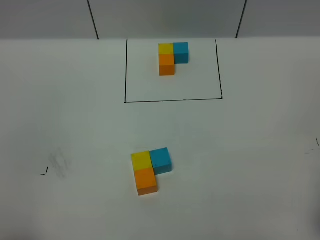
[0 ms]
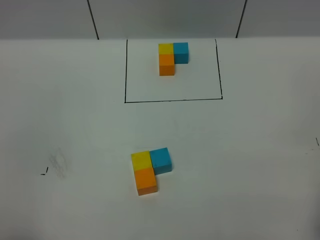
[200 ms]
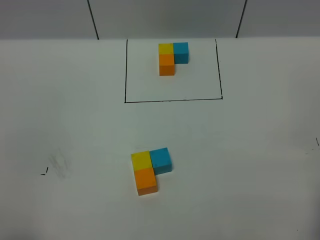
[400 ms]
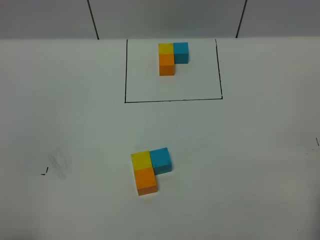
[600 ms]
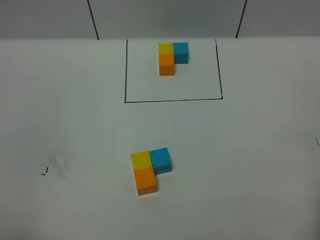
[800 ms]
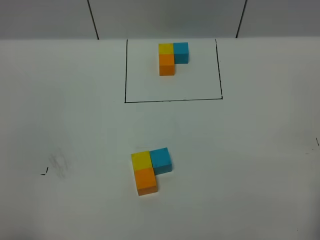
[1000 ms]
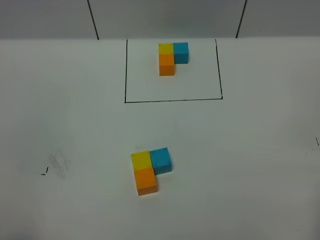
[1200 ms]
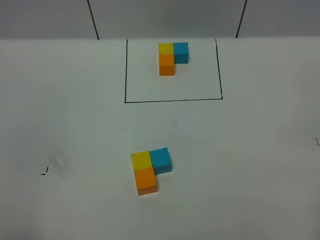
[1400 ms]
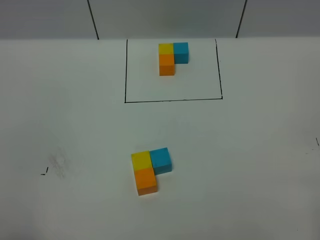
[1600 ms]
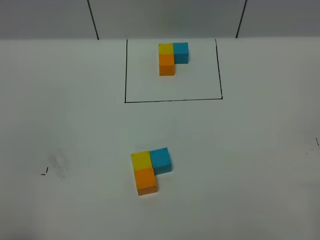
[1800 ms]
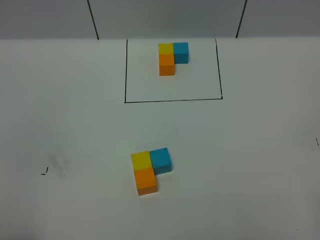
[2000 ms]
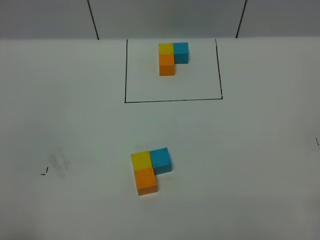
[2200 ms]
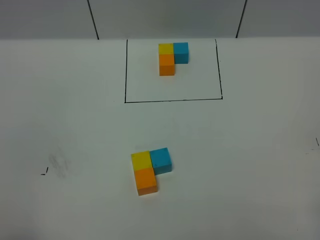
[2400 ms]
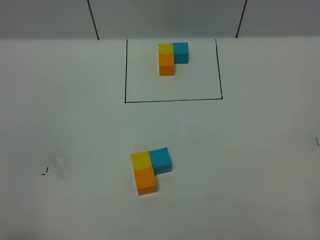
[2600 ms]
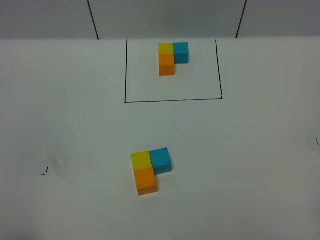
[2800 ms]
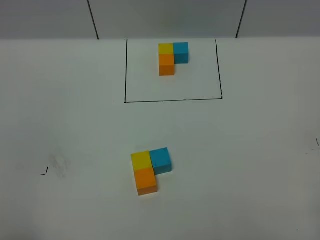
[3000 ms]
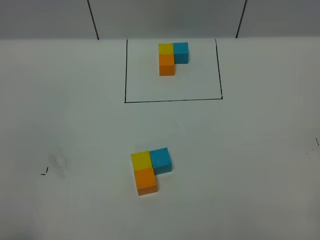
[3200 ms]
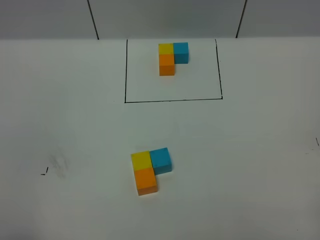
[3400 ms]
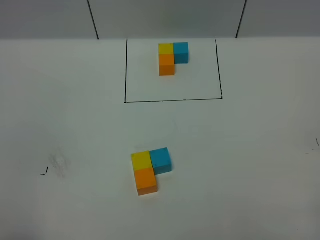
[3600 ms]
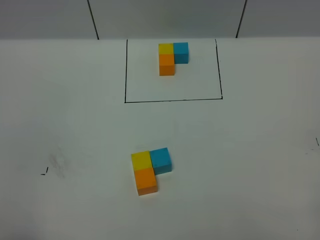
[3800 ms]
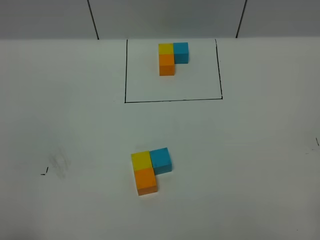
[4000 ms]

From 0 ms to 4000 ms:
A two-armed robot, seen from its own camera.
Task of the whole recording: According to the building block template in front, assemble the scattered blocks together.
From 2600 ms to 4000 ms: The two grippers keep their place.

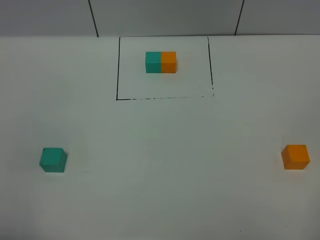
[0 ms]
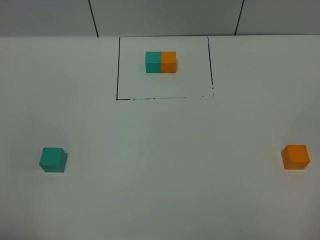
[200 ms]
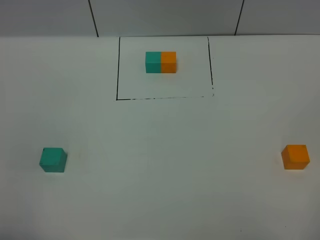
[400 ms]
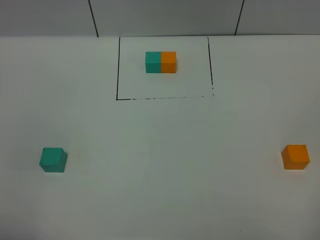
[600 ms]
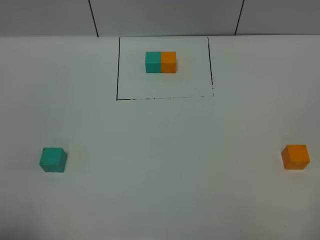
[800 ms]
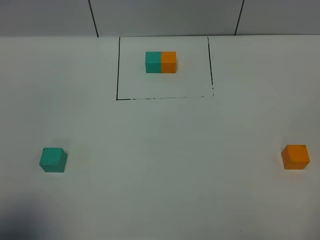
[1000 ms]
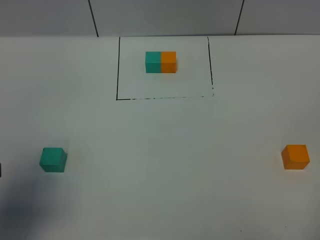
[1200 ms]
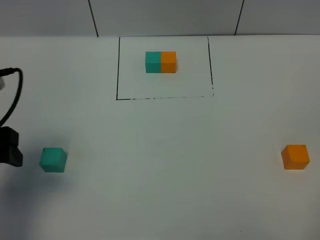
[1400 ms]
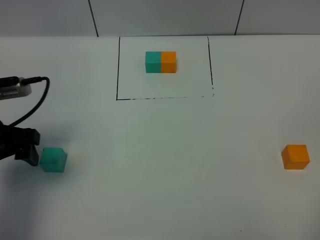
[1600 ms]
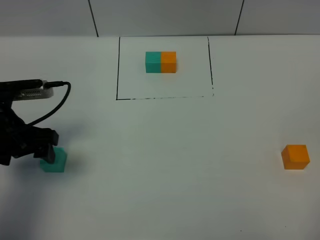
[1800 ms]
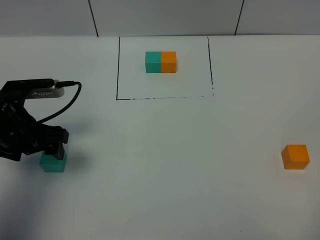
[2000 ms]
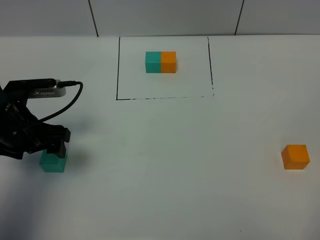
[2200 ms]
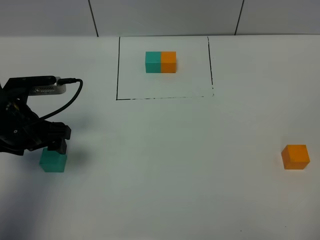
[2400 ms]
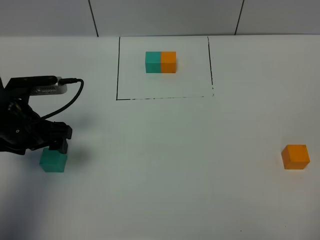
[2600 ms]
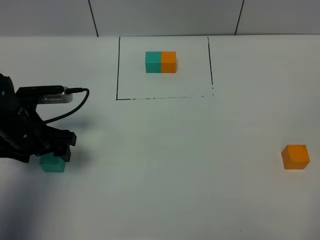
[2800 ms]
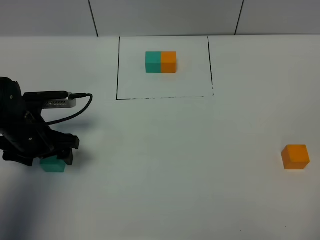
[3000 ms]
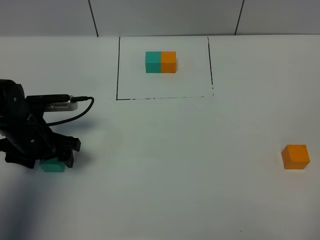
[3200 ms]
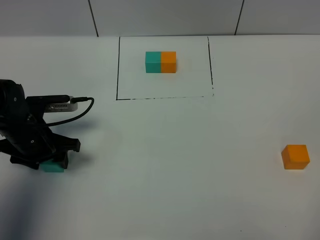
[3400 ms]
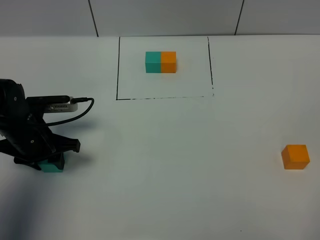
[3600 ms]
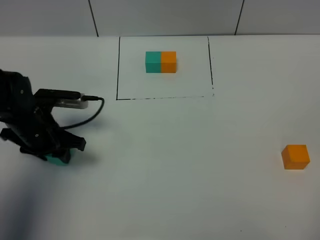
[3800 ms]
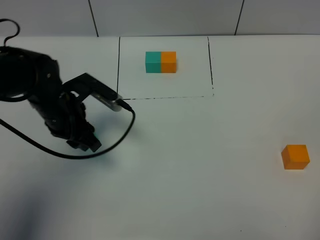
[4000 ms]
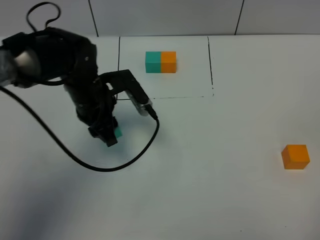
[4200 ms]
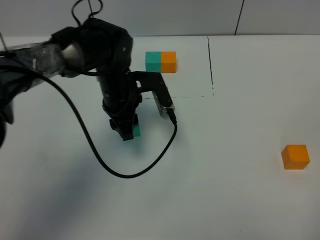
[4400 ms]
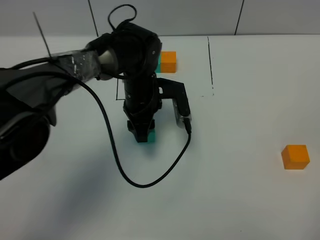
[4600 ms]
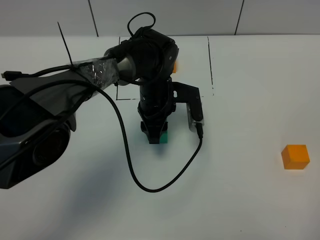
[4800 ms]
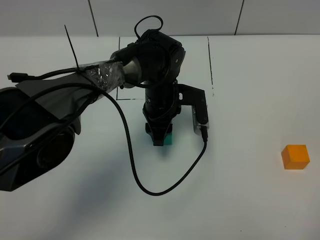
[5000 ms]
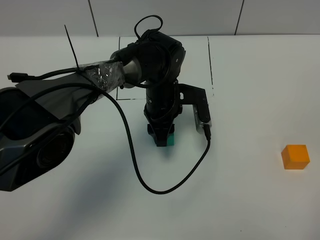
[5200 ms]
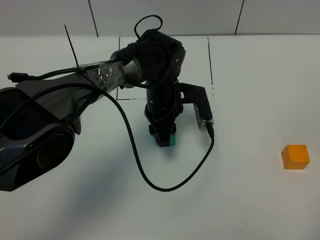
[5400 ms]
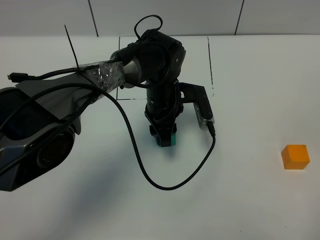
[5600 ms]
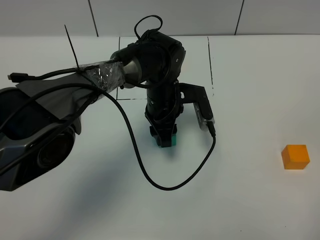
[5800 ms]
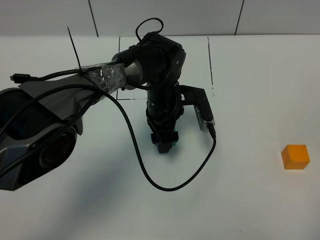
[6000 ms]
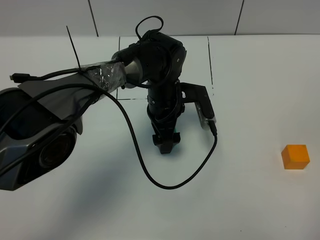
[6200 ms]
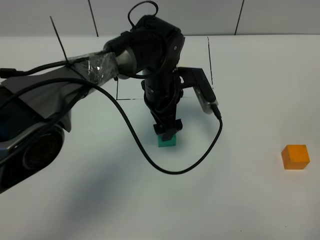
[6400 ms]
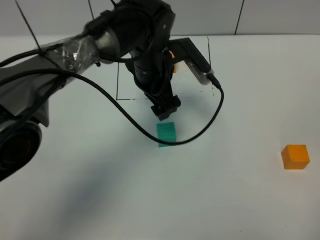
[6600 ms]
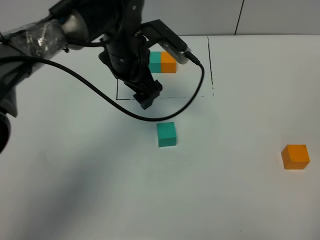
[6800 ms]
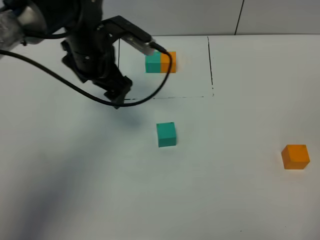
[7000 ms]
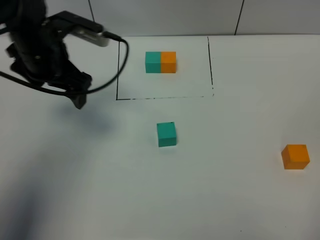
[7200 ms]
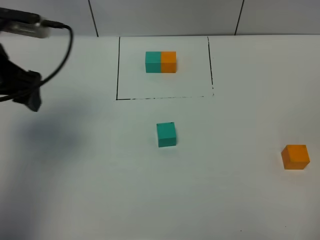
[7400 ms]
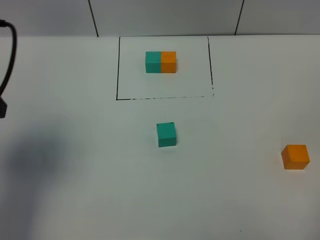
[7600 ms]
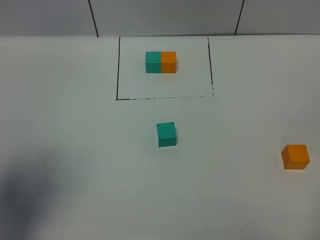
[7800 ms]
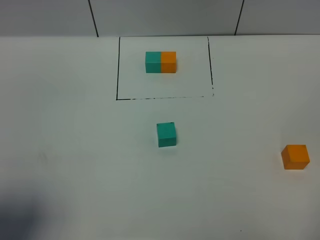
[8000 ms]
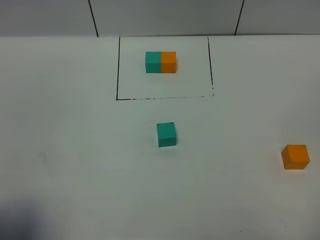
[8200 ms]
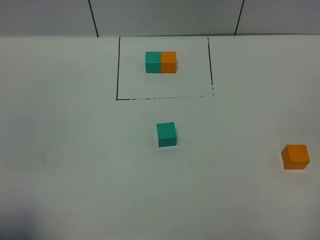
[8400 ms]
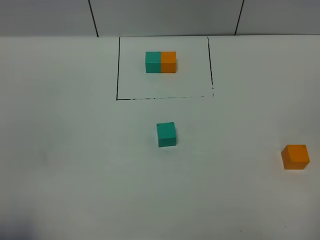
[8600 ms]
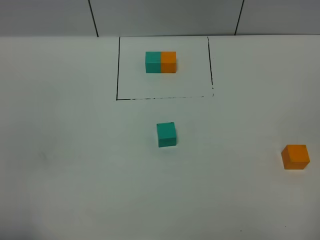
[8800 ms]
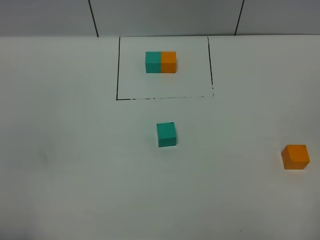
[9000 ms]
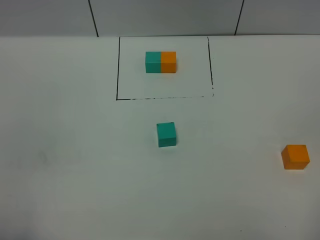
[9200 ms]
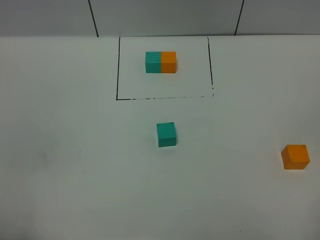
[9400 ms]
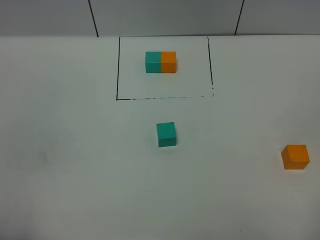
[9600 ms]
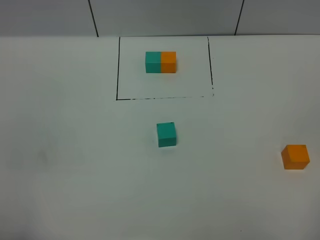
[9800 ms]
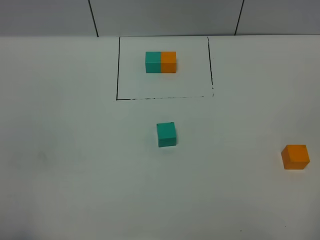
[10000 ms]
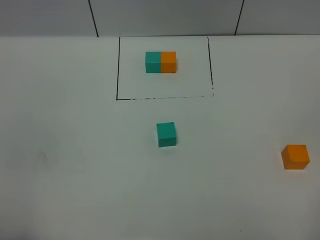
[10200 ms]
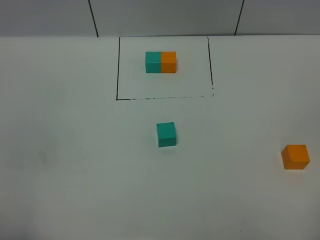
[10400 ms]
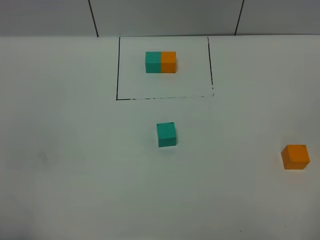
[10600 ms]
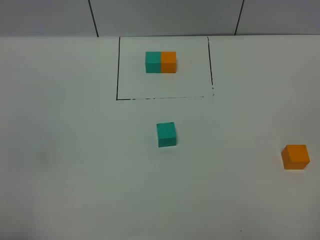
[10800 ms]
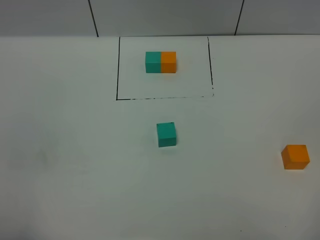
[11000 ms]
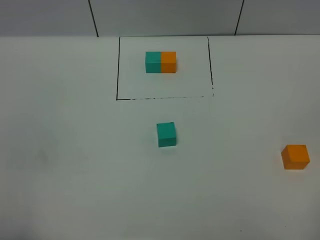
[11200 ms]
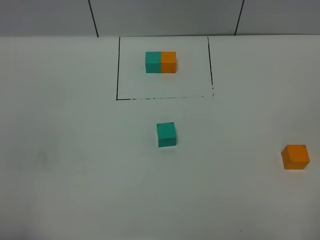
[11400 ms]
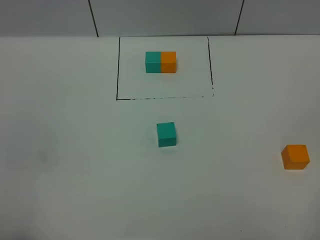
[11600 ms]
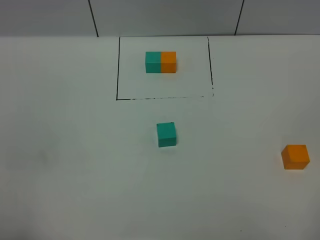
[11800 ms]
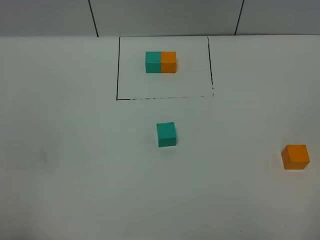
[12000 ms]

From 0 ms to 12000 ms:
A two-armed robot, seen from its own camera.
Task of the whole recording: According to the building block template in front, assemble the scattered blocks together.
Step, from 1200 ms to 6000 ms: Put the green cube in the center of the table.
From 0 ms to 1600 ms: The left gripper heads forward, covering some 25 cm.
From 1600 ms to 3000 ms: The left gripper moves downward, roughly 10 cm.
From 3000 ms to 4400 ms: The left gripper travels to the right and forward by some 20 cm, and closes.
From 4400 ms to 6000 ms: The left gripper is displaced to the right by roughly 5 cm, and opens its fingers.
From 6000 ms to 7600 ms: The left gripper shifts approximately 40 cm to the left, upward and backward.
From 7600 ms to 9000 ms: The left gripper moves backward, about 20 cm.
From 9000 ms to 12000 ms: Neither gripper changes place.

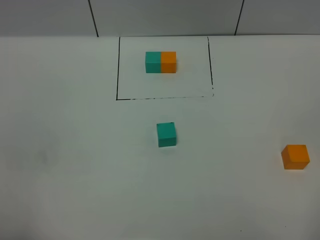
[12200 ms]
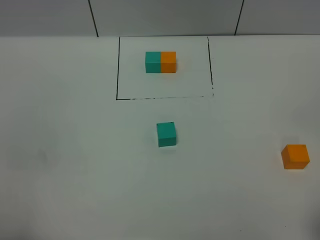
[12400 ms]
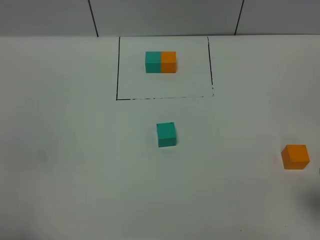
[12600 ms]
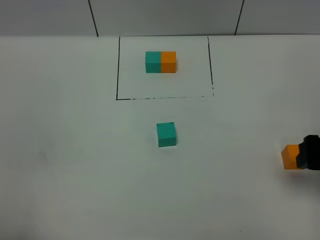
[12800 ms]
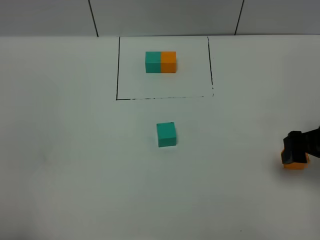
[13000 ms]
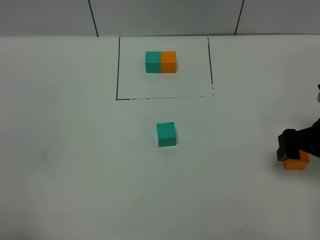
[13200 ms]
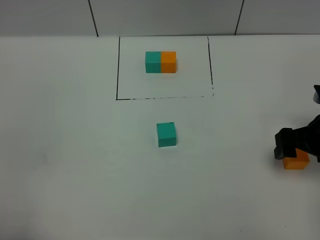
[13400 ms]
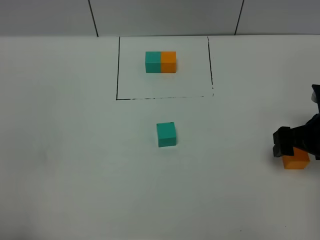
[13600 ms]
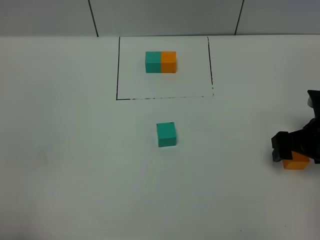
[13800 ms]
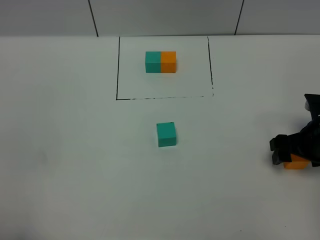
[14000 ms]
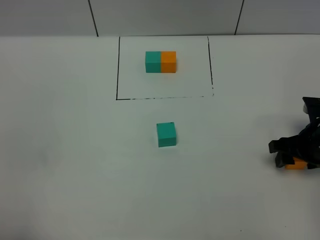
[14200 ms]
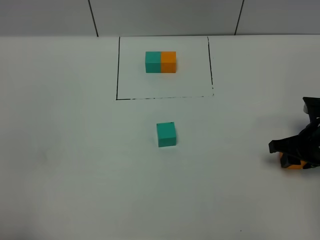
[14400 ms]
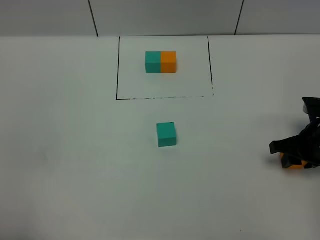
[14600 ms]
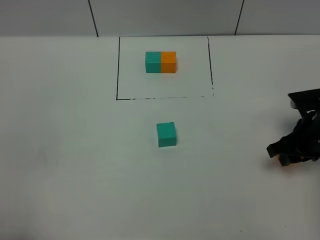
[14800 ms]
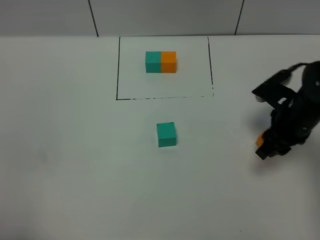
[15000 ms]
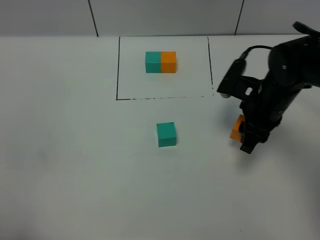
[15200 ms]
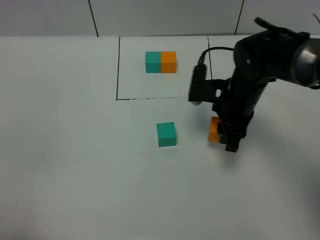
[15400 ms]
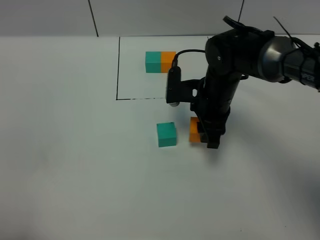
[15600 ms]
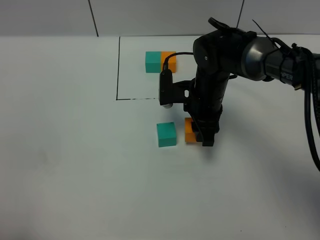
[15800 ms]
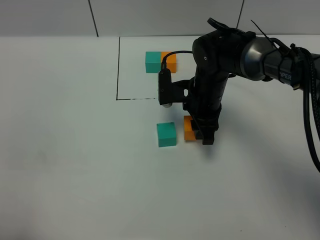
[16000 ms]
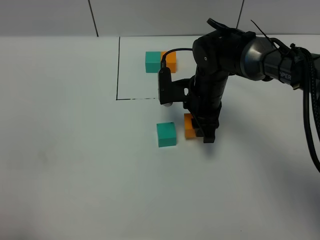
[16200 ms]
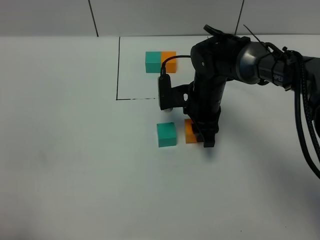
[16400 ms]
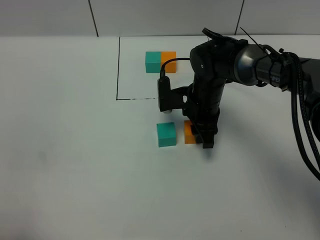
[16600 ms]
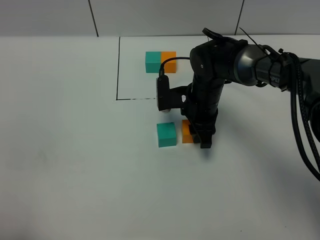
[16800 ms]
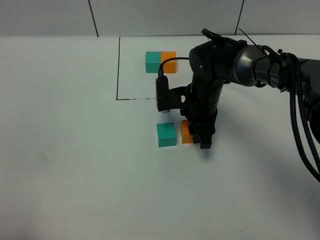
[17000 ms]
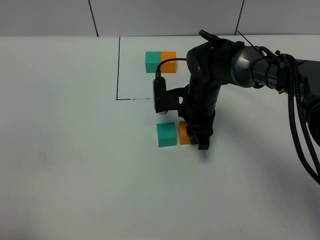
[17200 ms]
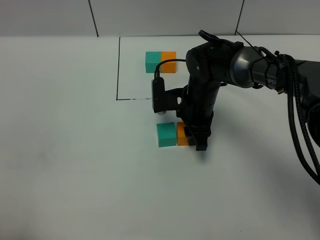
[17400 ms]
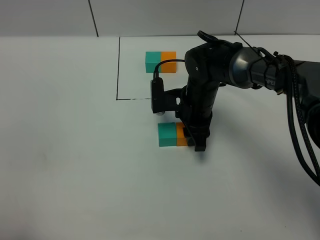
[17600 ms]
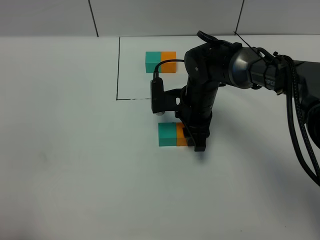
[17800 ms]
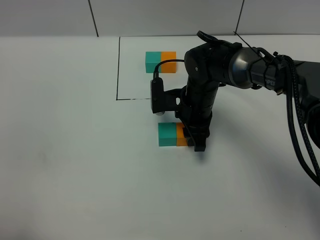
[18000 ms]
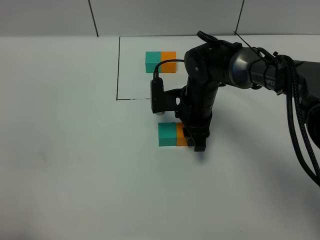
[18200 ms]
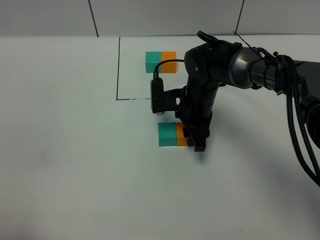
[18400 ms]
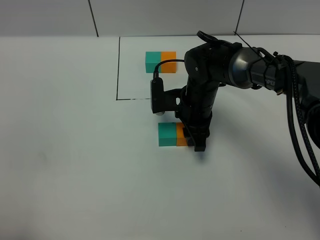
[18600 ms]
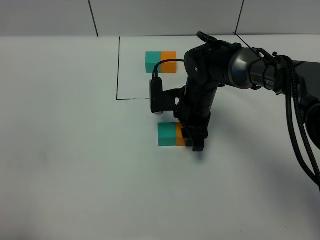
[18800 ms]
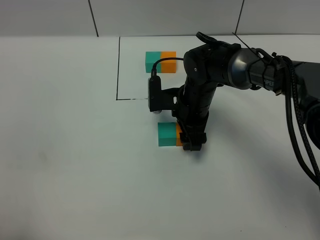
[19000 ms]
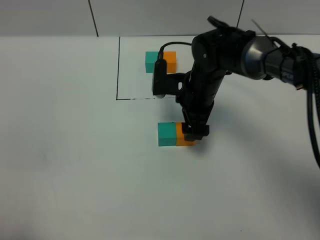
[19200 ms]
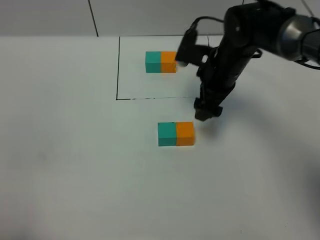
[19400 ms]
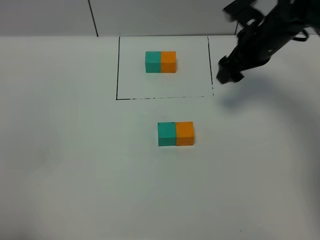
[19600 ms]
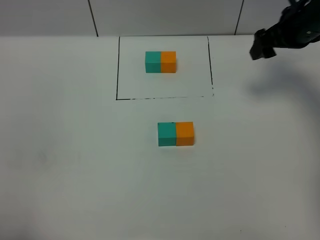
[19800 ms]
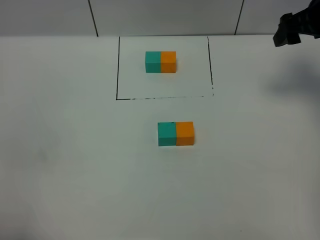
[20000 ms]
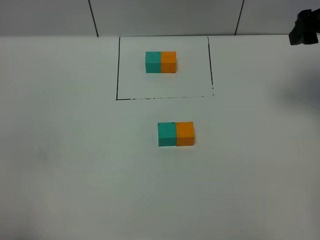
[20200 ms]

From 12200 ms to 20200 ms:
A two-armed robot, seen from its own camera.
Task of the whole recording: According to the building block template in front, assemble the scattered blocks together.
Step, from 12200 ms to 19000 ms: Put the orange cube on the right of the green cube.
From 12200 ms to 13800 ms: The right gripper shifts roughly 30 cm forward and downward.
From 13800 ms to 15400 ms: The right gripper moves to the left, about 15 cm, and closes its fingers.
From 15400 ms to 17000 ms: The right gripper goes about 5 cm to the left.
From 17000 ms to 18600 ms: Both grippers stay about where they are.
From 18600 ms to 20200 ms: The right gripper is displaced to the right and upward by about 30 cm, and opens its fingers.
